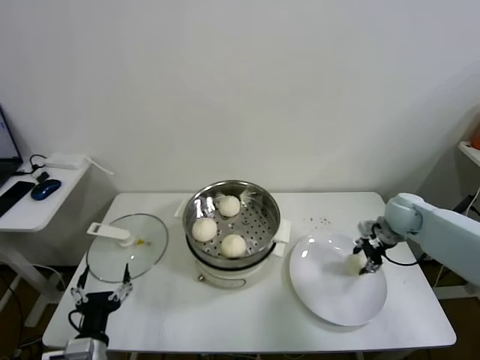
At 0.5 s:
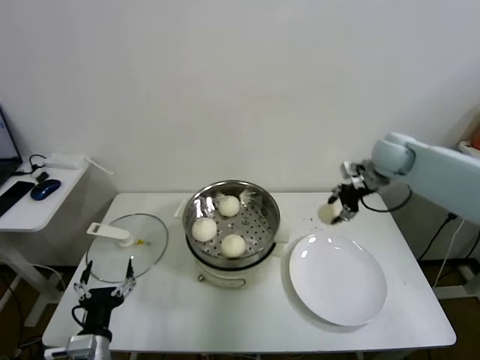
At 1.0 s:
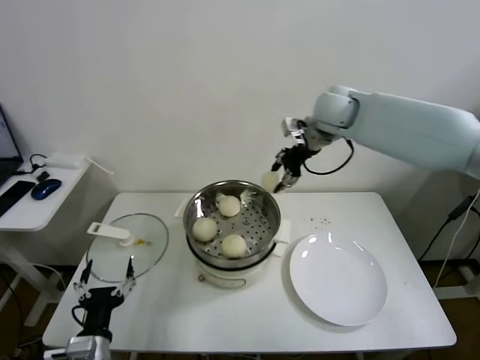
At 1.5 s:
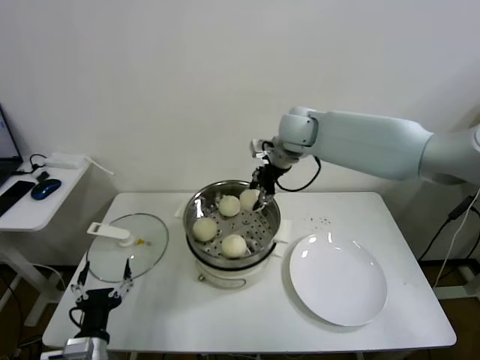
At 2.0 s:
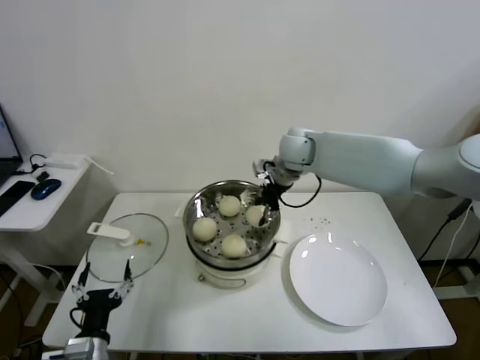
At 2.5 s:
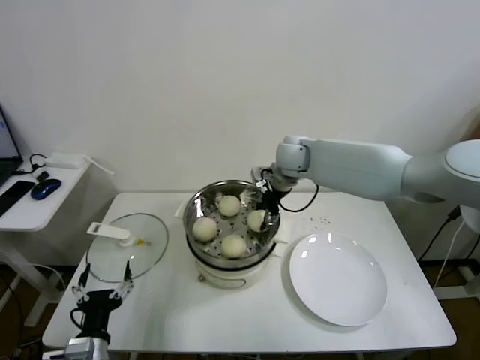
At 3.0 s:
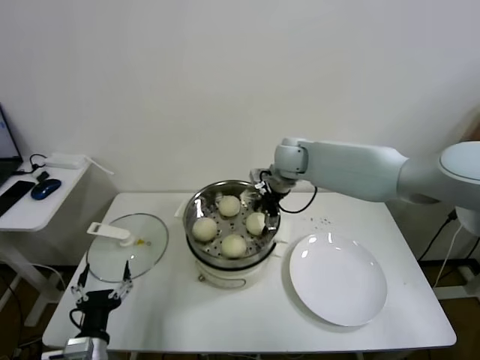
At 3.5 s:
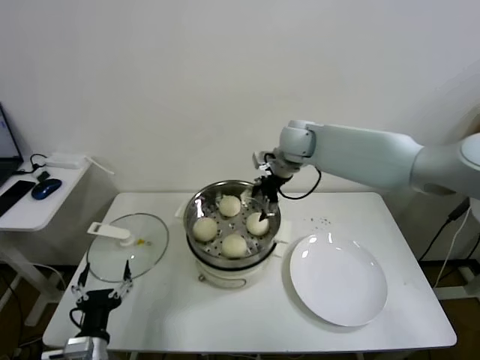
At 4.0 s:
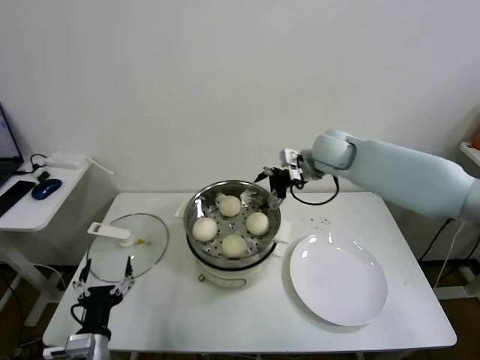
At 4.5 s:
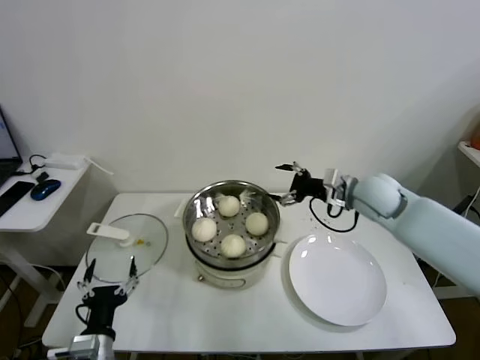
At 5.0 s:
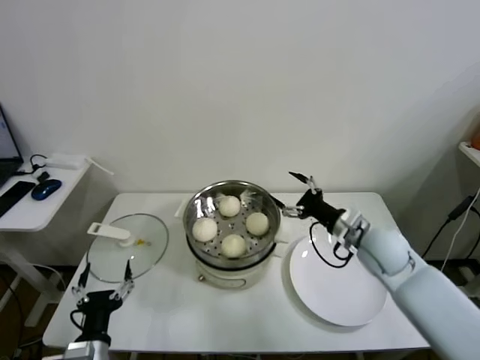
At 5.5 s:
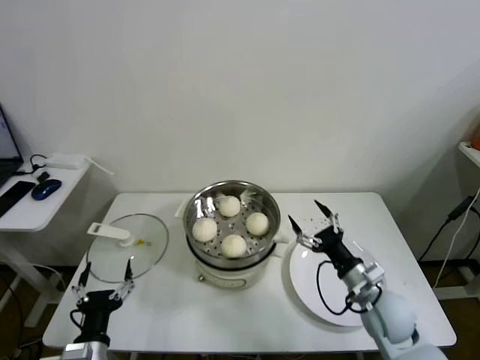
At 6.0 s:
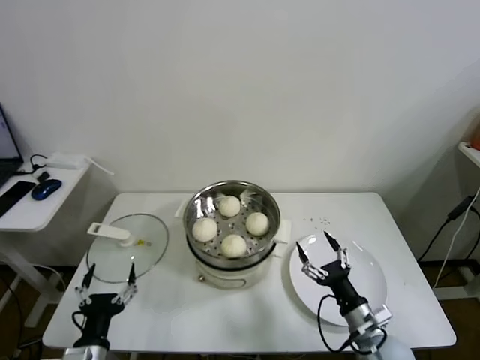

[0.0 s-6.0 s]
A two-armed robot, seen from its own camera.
Task of the whole recording: take steamed baozi put them in steamer.
Step, 0.0 to 3.0 s: Place the baozi on the steamer with right gripper.
0.0 to 2.0 s: The right gripper goes some 30 cm to the left and upward.
2.0 to 4.0 s: The right gripper shifts roughly 5 cm to the right, and opens.
4.0 to 6.0 s: The right gripper shifts approximately 40 cm backward and downward.

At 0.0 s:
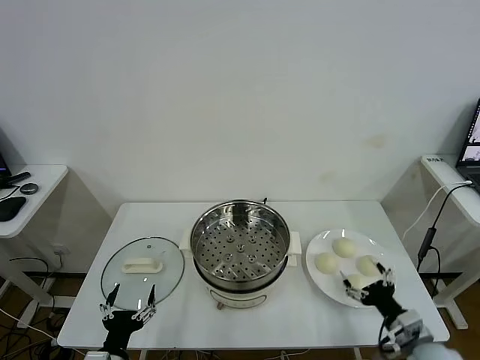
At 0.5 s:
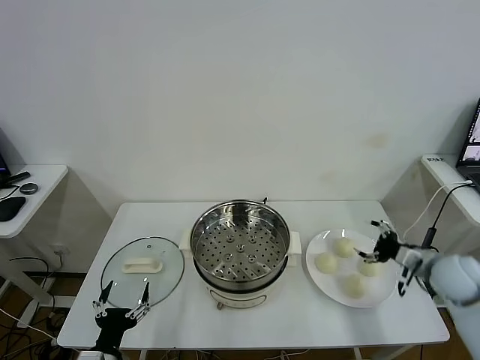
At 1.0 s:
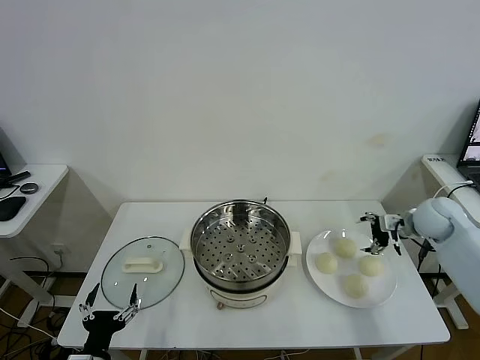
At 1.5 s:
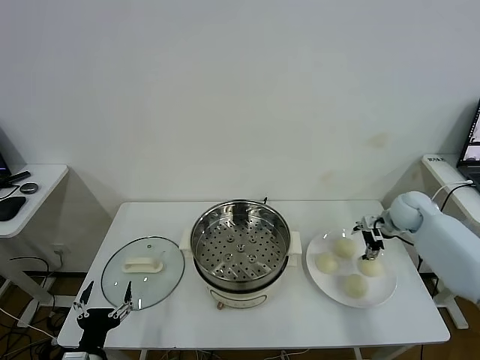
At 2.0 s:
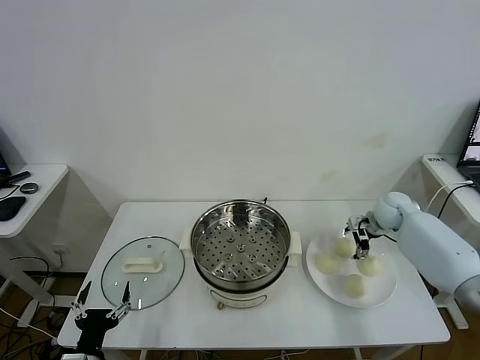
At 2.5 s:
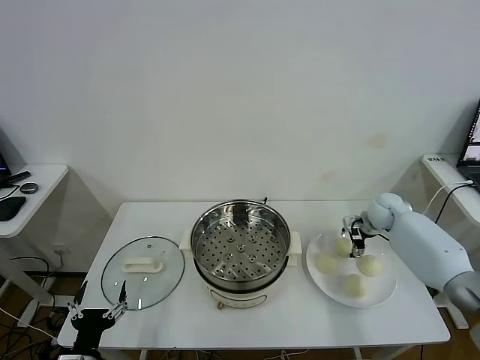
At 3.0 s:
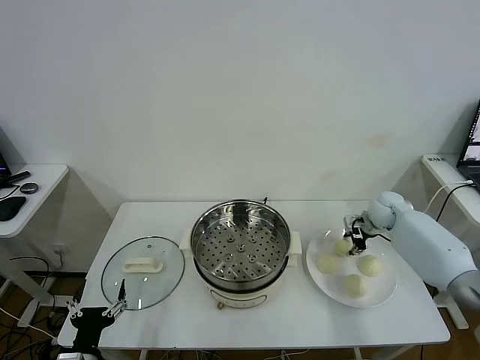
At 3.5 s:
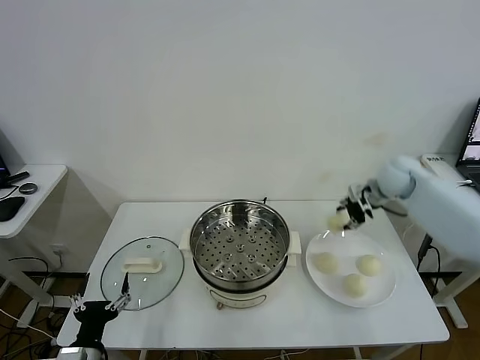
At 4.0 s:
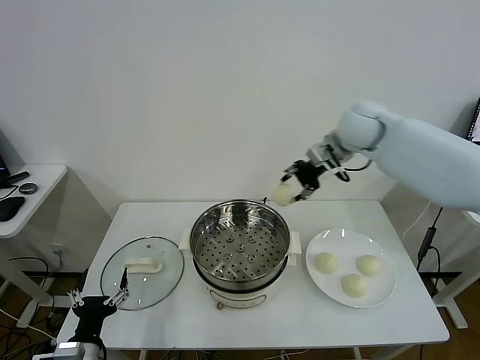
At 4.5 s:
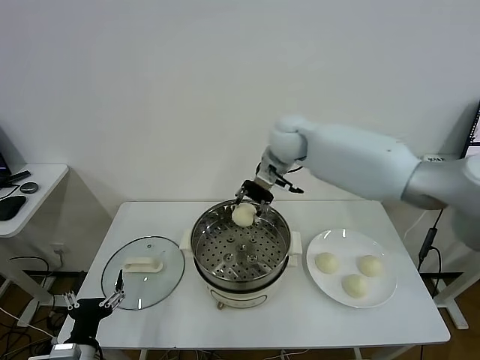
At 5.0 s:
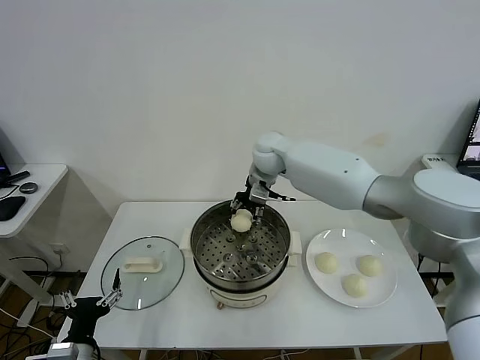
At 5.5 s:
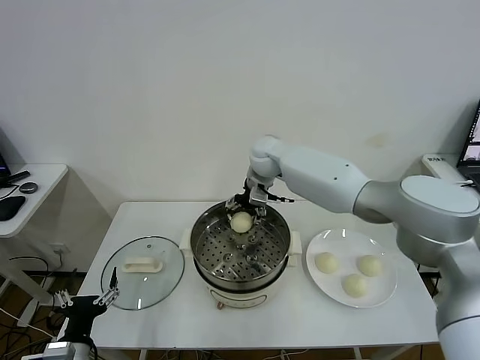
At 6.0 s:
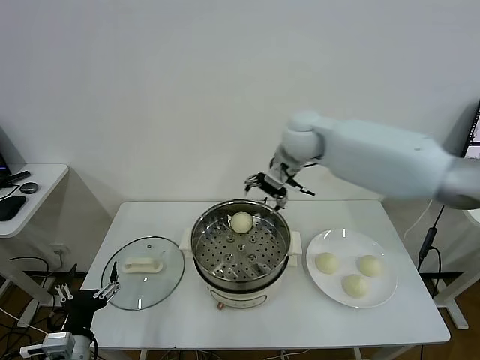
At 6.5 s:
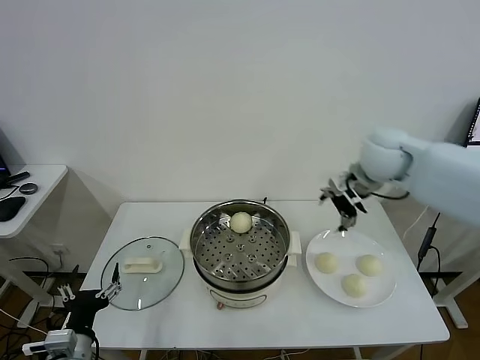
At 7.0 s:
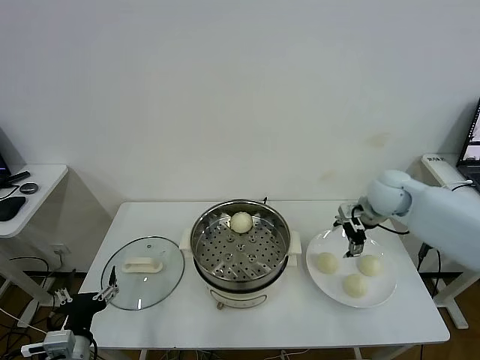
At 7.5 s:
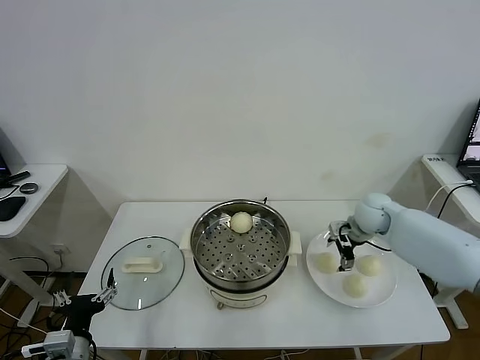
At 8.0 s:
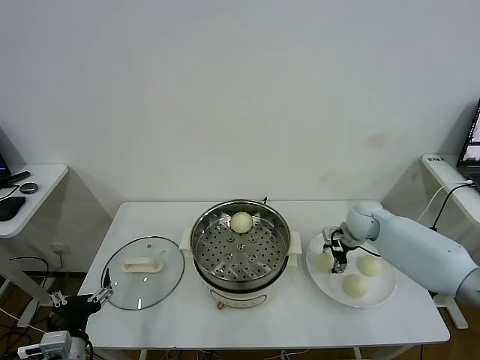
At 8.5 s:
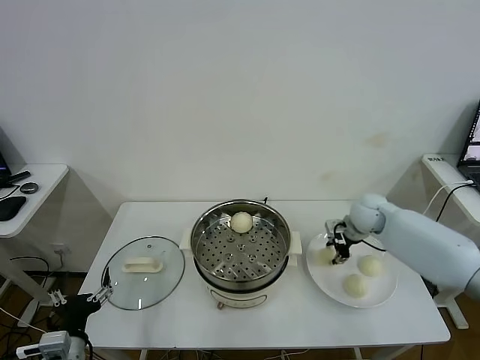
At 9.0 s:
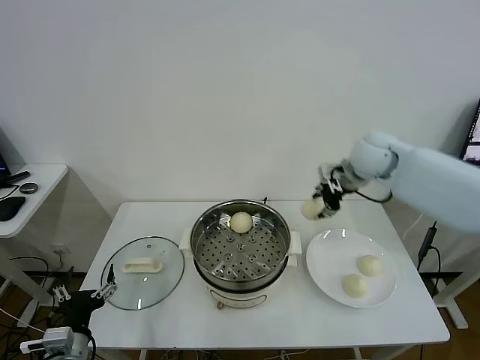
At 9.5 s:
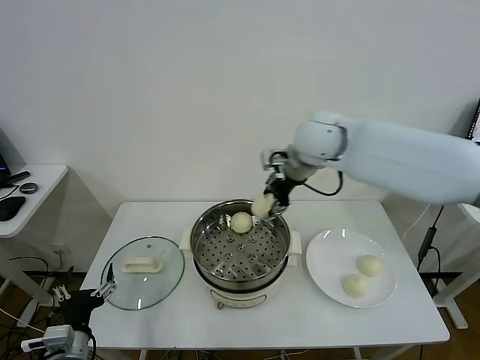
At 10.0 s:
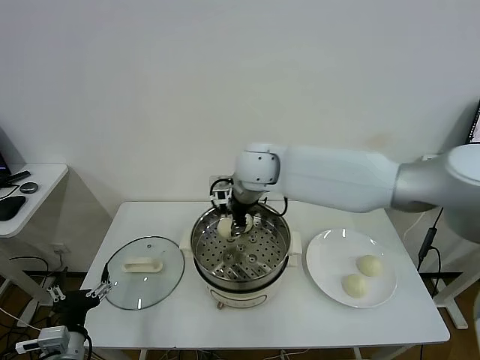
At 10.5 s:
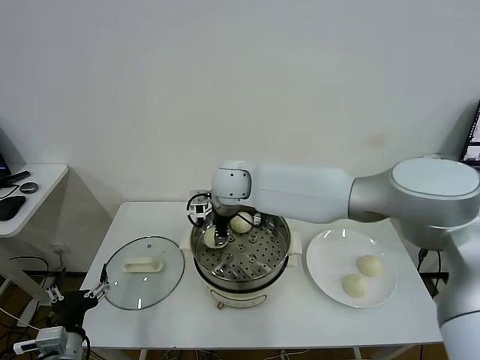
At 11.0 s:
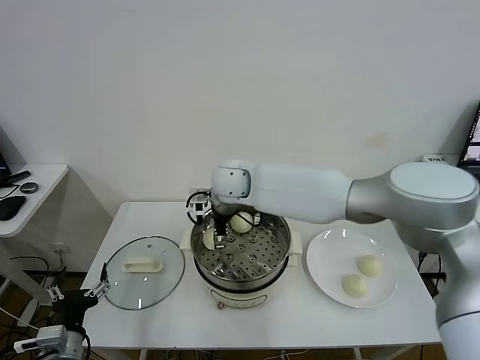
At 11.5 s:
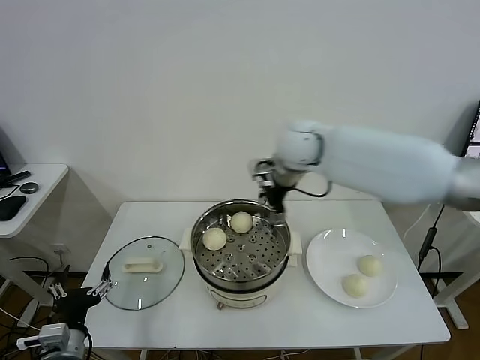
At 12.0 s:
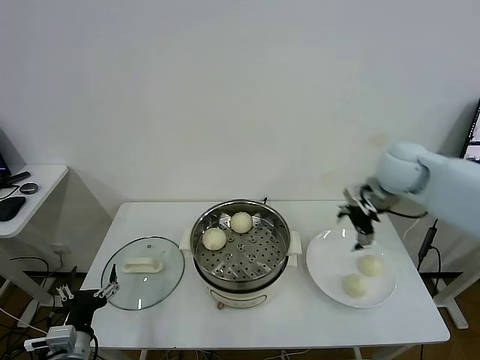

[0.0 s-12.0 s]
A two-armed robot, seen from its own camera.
Task of the whole recording: take steamed baozi put them in steamer.
Step, 0.0 to 2.5 s: Grasp the baozi in the plate with right gripper.
Step, 3.0 to 5.5 s: Place the baozi on the steamer with right gripper.
Step, 6.0 to 8.0 s: Grasp the baozi in the plate with right gripper.
Step, 8.5 to 11.0 s: Place the baozi on the steamer with right gripper.
2.0 to 4.0 s: The right gripper travels upward and to the left by about 30 cm, and closes its fingers.
4.0 to 6.0 s: The right gripper heads to the left, covering some 10 cm, and opens its fingers.
6.0 to 8.0 s: The right gripper moves downward and to the right, about 30 cm, and closes its fingers.
8.0 to 10.0 s: The right gripper is displaced to the left and upward by some 35 cm, and closes up.
10.0 to 12.0 s: The right gripper shifts about 30 cm to the right, and opens up.

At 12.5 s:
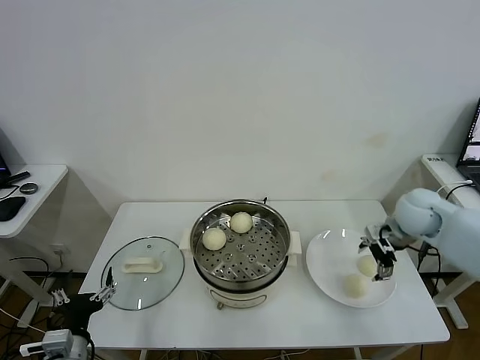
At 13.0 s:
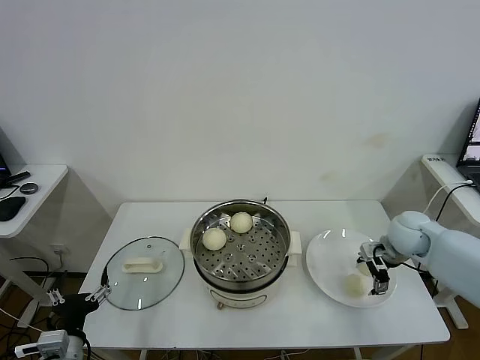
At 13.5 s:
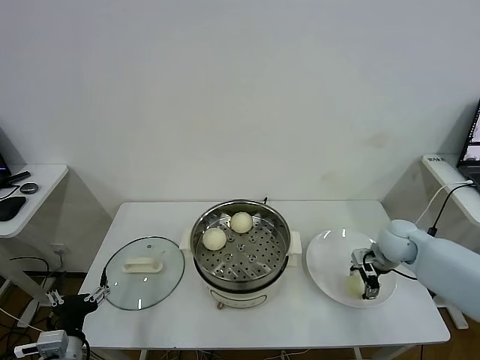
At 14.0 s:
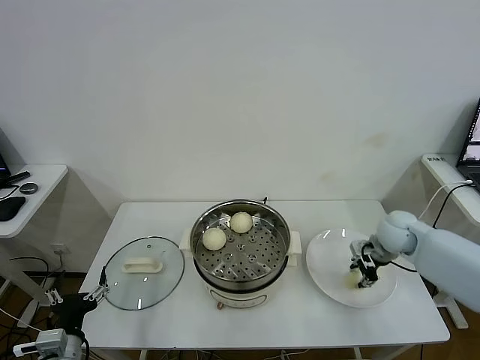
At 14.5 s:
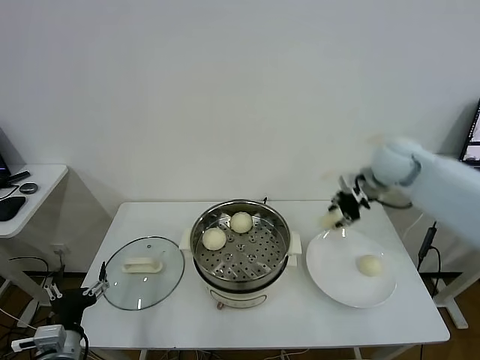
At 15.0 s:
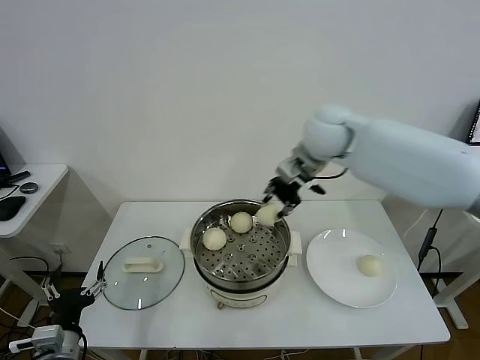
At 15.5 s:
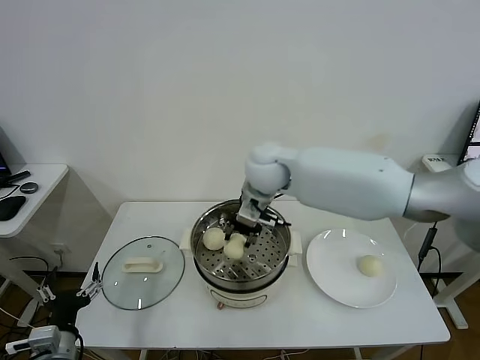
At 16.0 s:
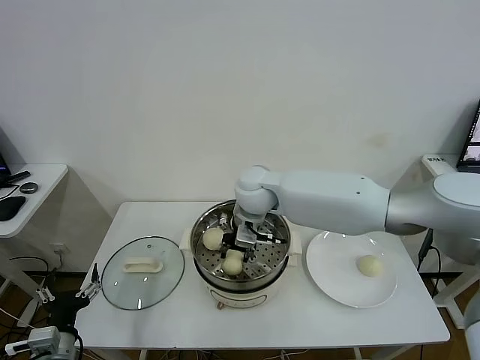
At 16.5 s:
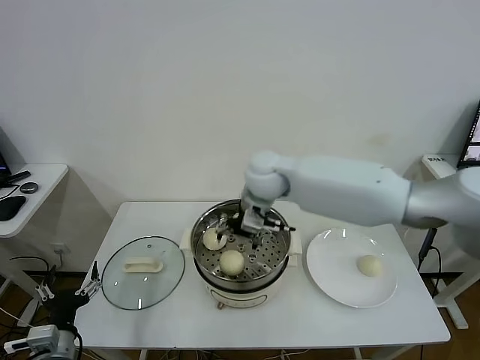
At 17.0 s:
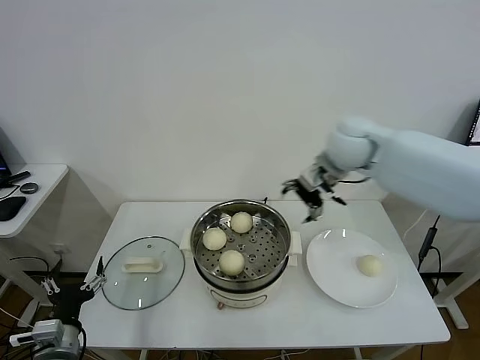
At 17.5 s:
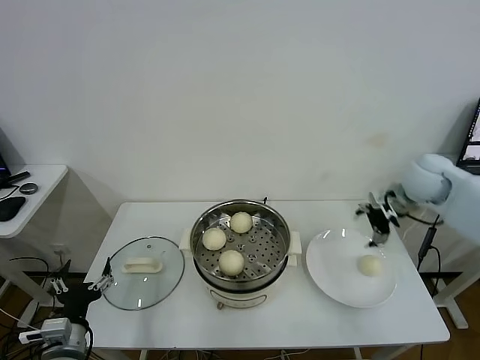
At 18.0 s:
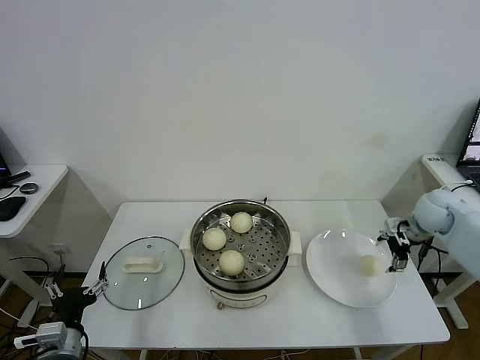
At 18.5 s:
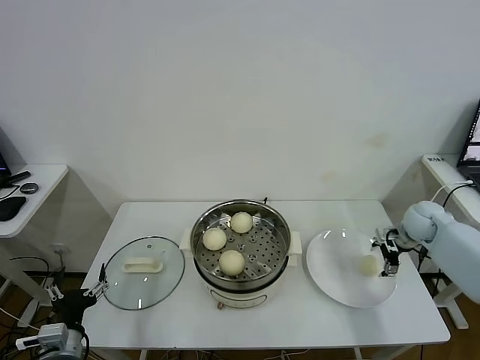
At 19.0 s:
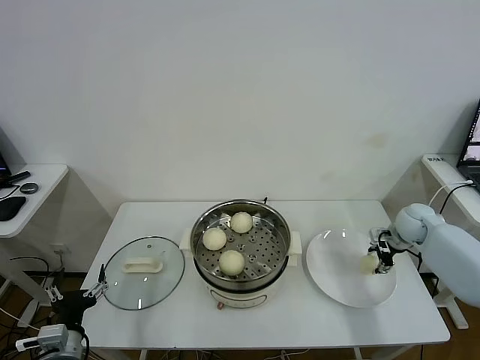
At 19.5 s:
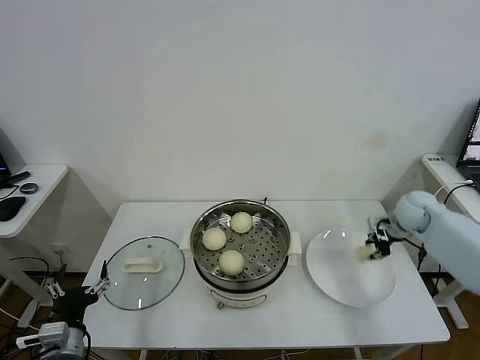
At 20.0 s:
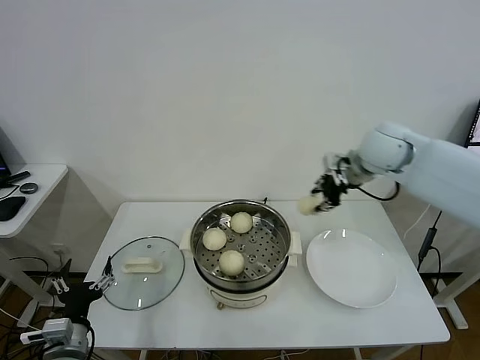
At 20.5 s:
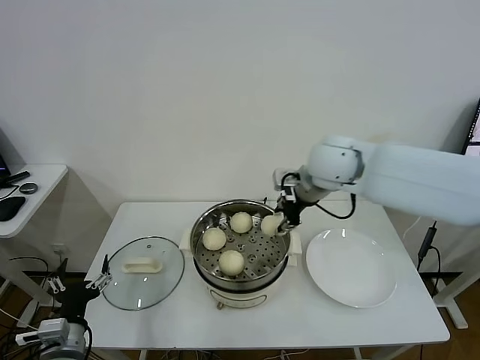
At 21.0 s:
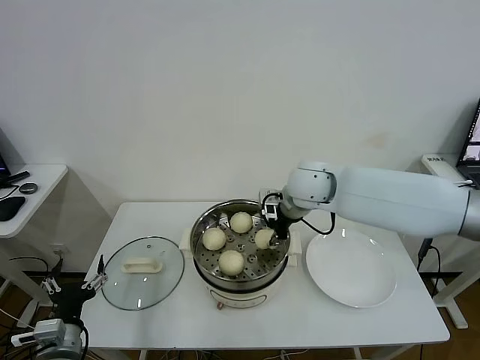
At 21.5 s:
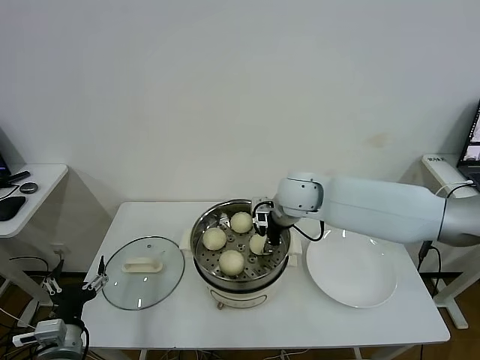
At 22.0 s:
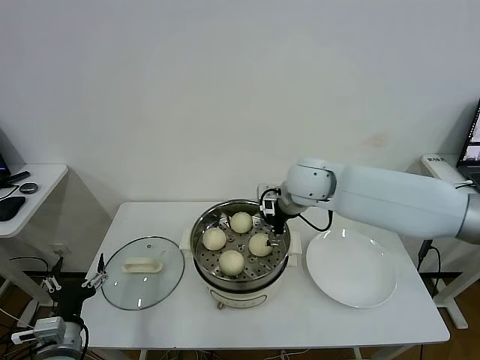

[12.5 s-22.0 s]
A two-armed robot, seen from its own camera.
Task of the whole recording: take steamed baozi put them in steamer.
Step, 12.5 to 14.0 s: Grasp the baozi in the plate with right gripper.
Step, 14.5 to 16.5 s: Place the baozi on the steamer with right gripper.
Step, 17.0 to 19.0 s: Grasp the baozi in the plate with right gripper.
Step, 19.5 to 22.0 s: Place the baozi on the steamer with right gripper.
12.5 to 14.5 s: The right gripper travels upward, to the left and forward by roughly 10 cm, and closes up.
14.5 to 16.5 s: The right gripper goes about 25 cm to the left, and opens.
16.5 to 18.0 s: The right gripper moves to the right, some 40 cm.
18.0 to 20.0 s: The right gripper heads to the left and upward, covering approximately 20 cm, and closes up.
20.0 to 22.0 s: The right gripper heads to the left, covering roughly 15 cm, and opens.
